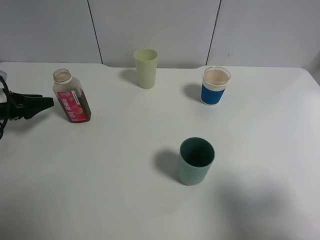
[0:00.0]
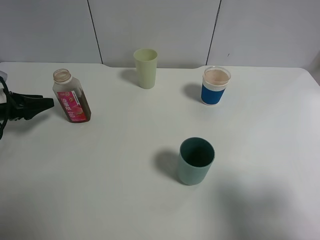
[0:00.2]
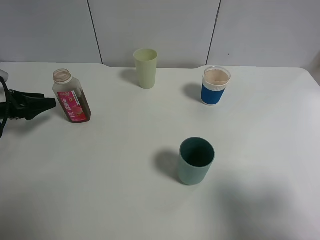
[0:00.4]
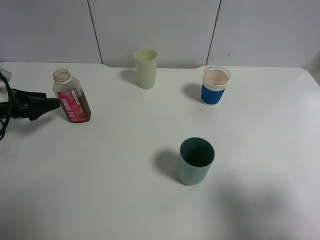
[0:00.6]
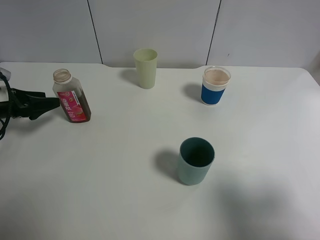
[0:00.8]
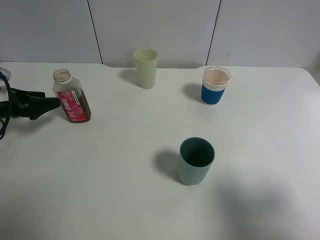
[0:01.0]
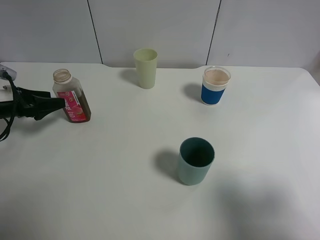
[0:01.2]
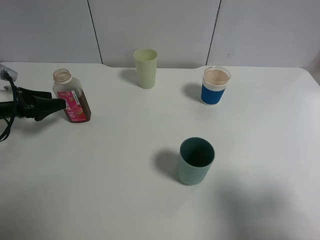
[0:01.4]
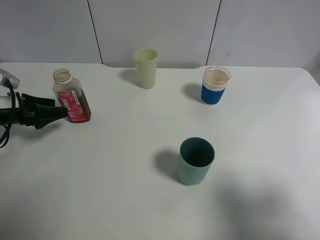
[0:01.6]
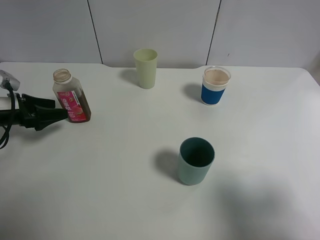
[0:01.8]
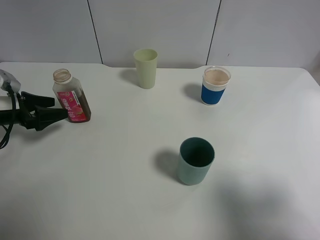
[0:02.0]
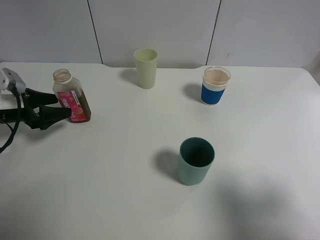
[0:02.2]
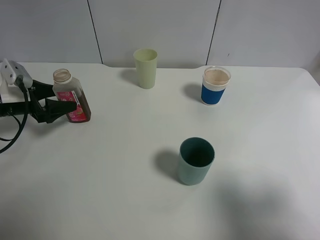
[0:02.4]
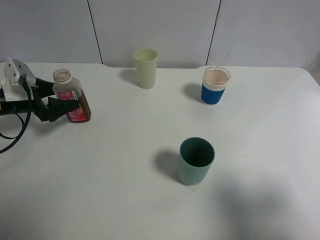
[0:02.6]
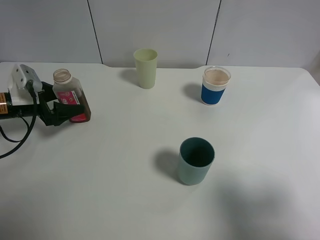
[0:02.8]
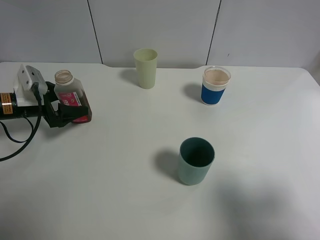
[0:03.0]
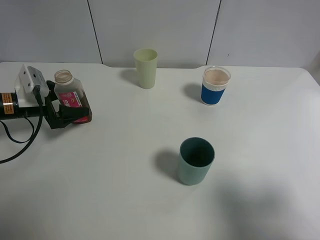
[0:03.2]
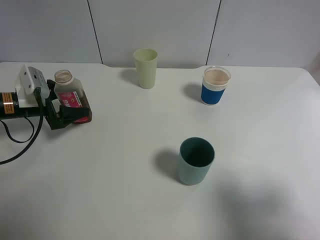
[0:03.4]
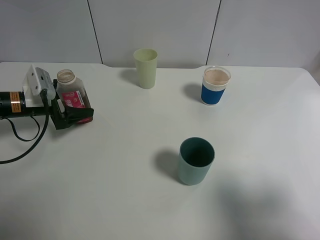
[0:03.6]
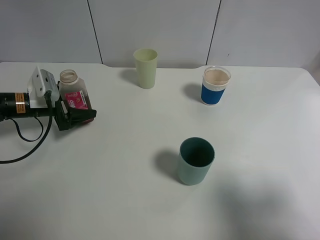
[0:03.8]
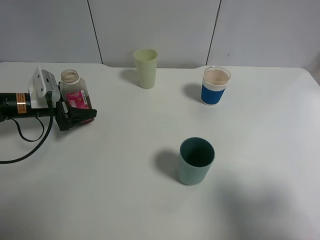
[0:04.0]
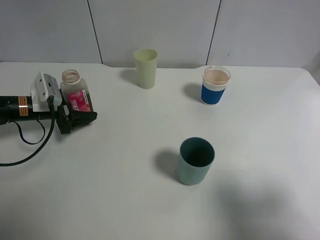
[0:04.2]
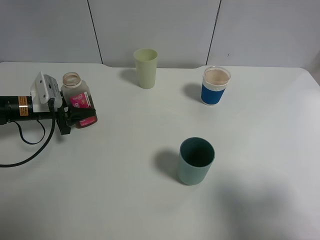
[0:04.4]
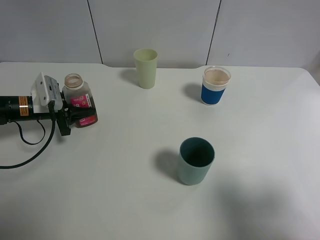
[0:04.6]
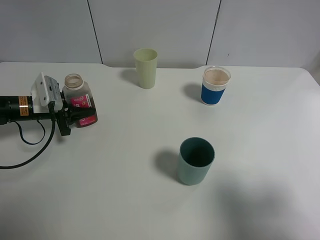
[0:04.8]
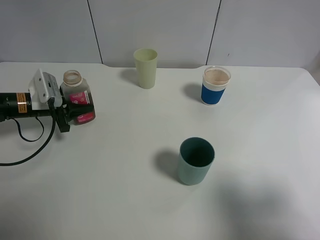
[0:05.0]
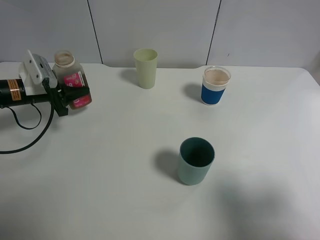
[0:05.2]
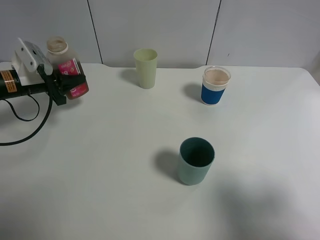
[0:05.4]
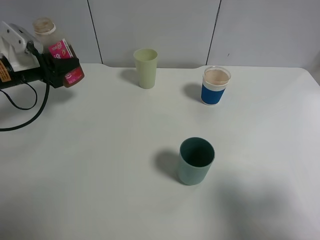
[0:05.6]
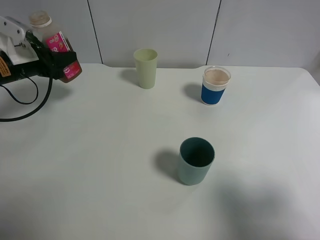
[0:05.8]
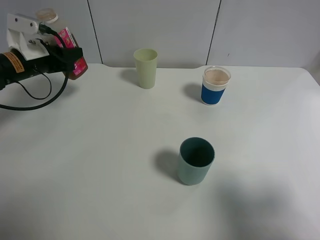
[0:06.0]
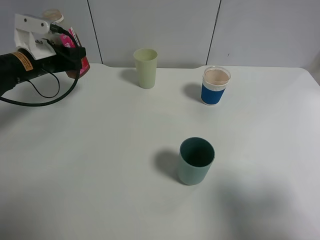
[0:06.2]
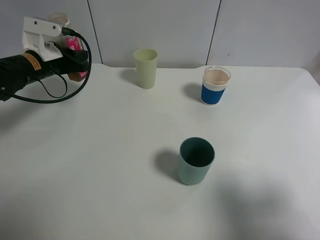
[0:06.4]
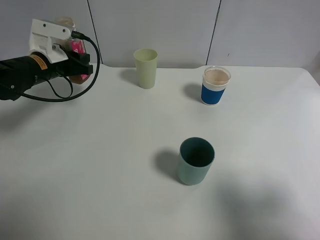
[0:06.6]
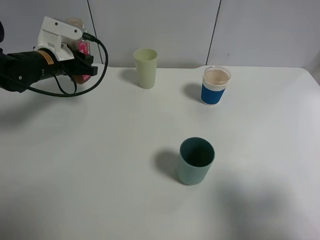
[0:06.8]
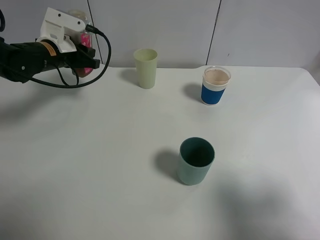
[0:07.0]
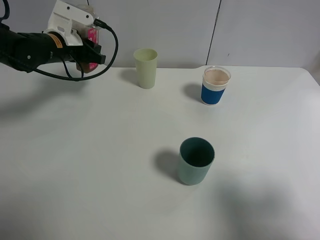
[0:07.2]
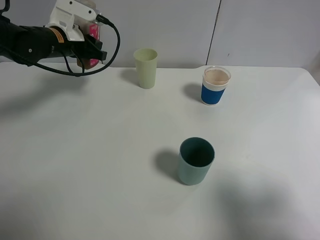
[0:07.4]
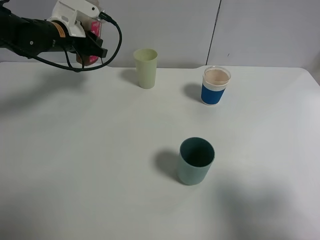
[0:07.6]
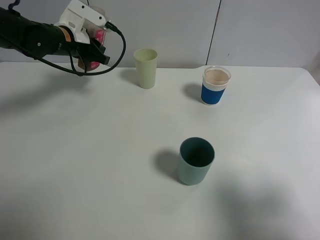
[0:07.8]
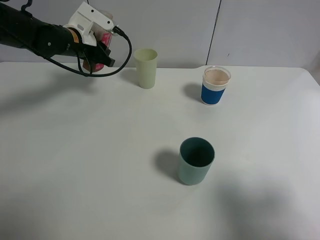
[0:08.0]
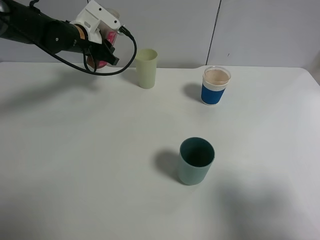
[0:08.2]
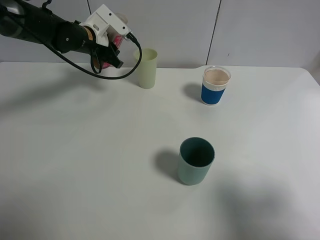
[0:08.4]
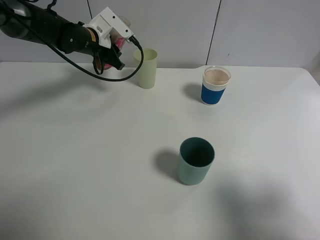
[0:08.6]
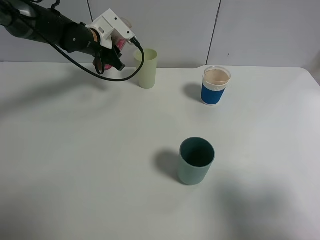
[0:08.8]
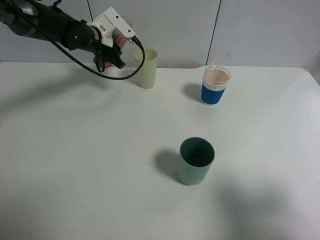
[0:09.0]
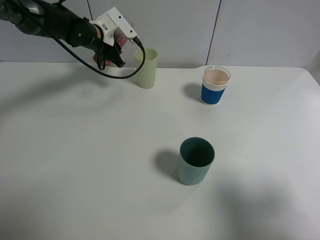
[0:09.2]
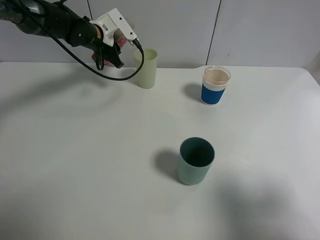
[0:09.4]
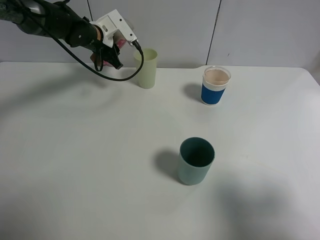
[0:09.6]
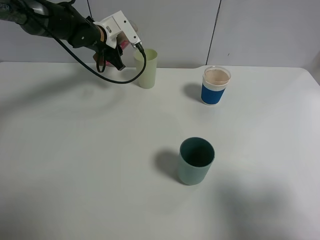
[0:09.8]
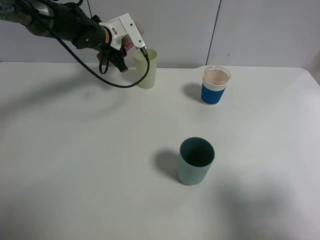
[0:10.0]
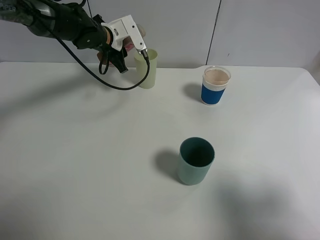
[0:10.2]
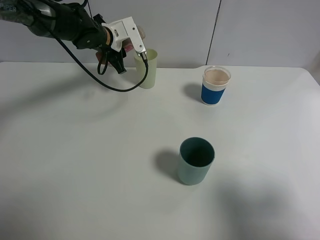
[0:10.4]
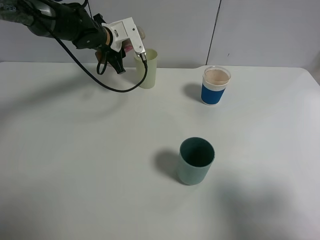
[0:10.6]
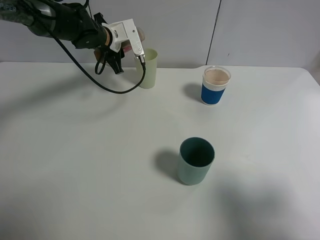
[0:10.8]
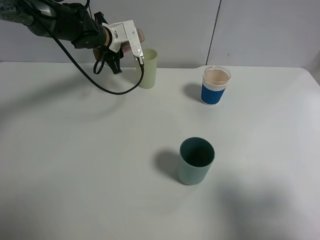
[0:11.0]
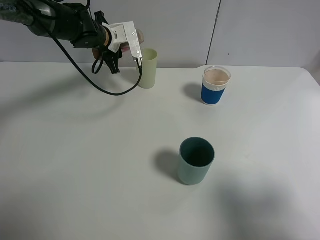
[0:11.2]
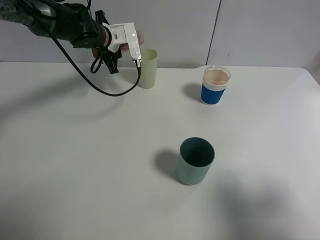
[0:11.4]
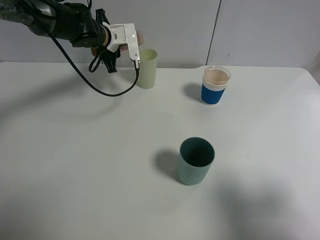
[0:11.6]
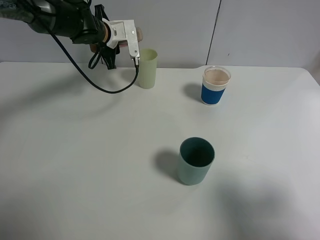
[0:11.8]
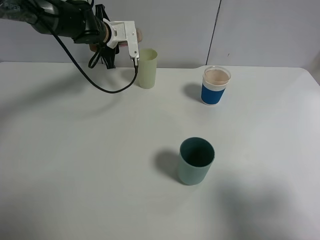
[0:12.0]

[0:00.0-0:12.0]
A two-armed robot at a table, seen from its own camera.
Task of the whole recording: use a gripper to hold the bottle of the drink and pour it into a random cup.
Step, 0:00.0 to 0:04.4: Grasp the cranberry juice bottle with the left gripper.
0:00.0 to 0:01.6: The left gripper opens.
0:01.6 to 0:03.0: The grippers move only a little.
0:03.0 to 0:04.4: The left gripper closes its fingers.
0:04.4 to 0:06.0: The left gripper heads upward, covering some 10 cm.
0:06.0 to 0:07.6: The left gripper heads to the right and forward, covering roughly 10 cm.
0:07.6 to 0:09.0: The left gripper heads forward, covering some 5 cm.
0:09.0 to 0:10.4: The grippers stay close to where they were, moving slightly.
0:10.4 to 0:12.0: There are only small adjustments of the grippers.

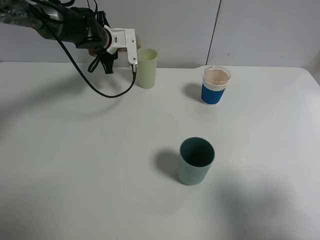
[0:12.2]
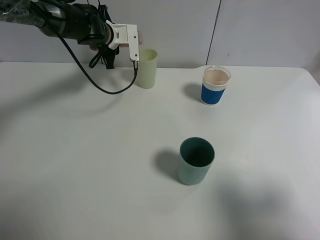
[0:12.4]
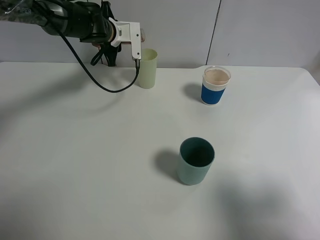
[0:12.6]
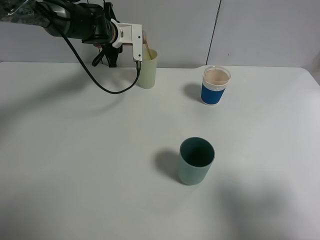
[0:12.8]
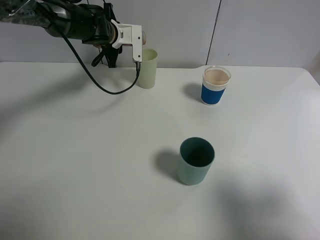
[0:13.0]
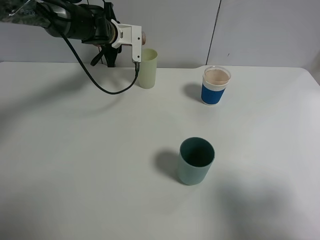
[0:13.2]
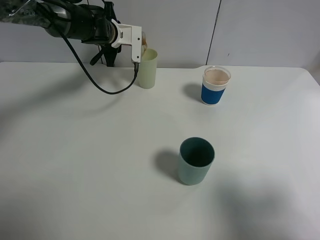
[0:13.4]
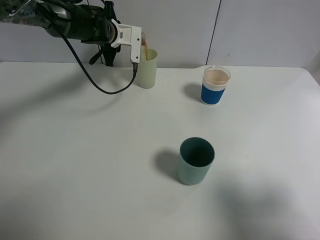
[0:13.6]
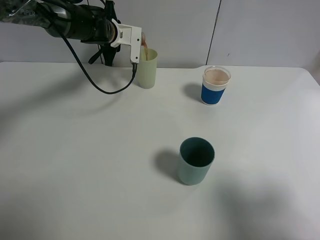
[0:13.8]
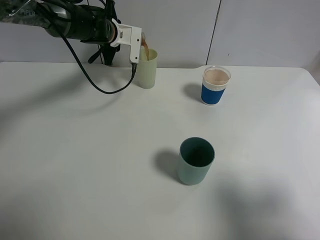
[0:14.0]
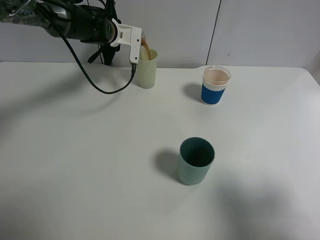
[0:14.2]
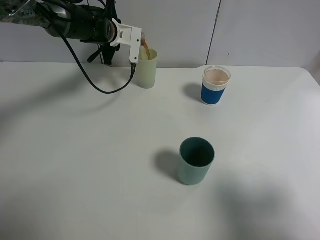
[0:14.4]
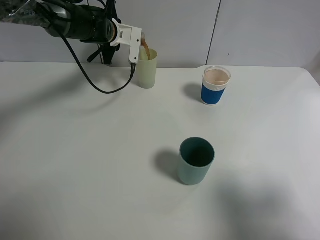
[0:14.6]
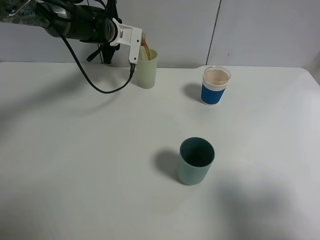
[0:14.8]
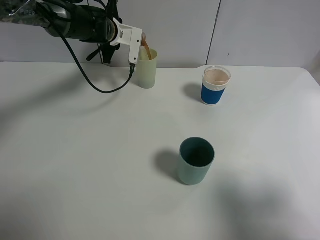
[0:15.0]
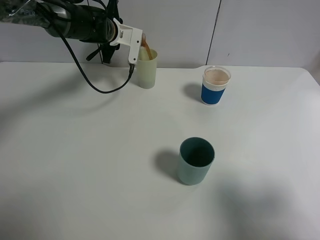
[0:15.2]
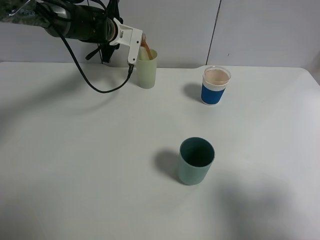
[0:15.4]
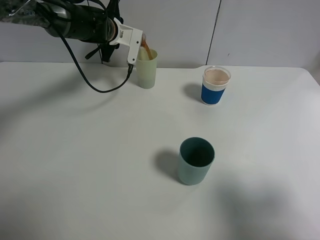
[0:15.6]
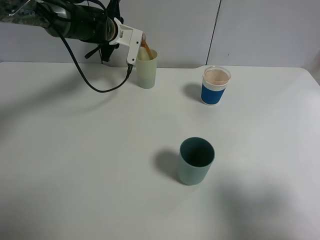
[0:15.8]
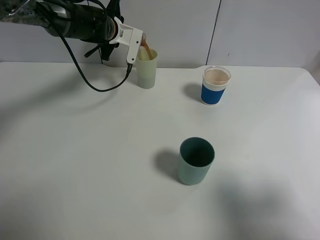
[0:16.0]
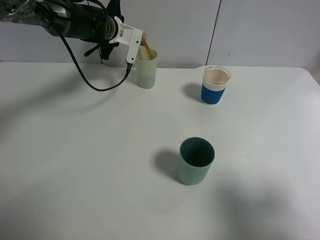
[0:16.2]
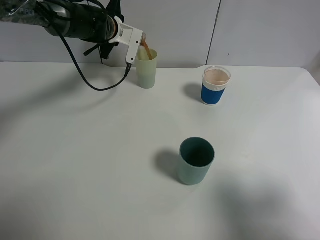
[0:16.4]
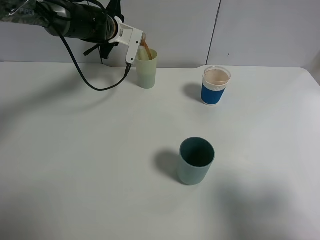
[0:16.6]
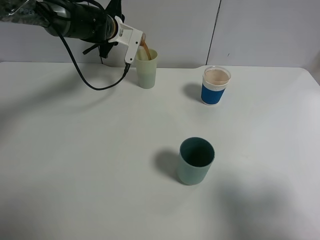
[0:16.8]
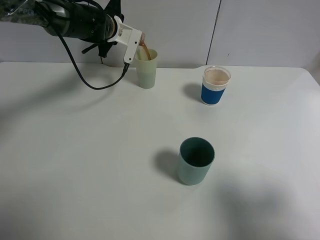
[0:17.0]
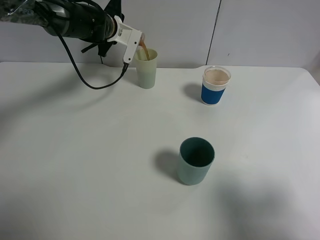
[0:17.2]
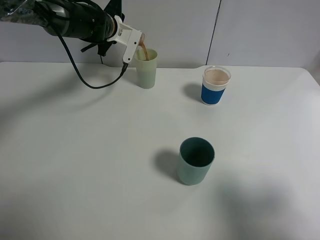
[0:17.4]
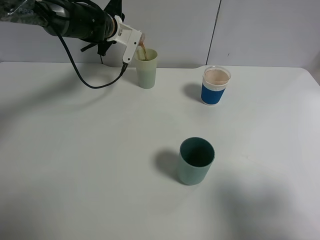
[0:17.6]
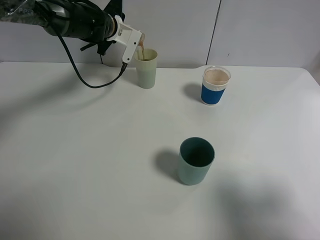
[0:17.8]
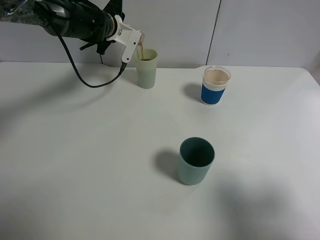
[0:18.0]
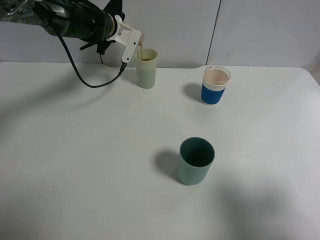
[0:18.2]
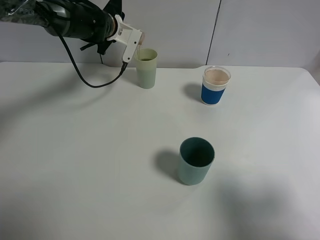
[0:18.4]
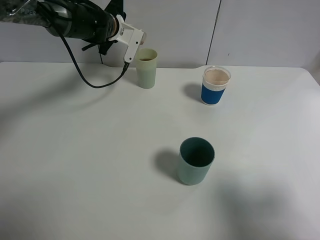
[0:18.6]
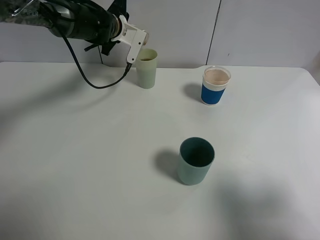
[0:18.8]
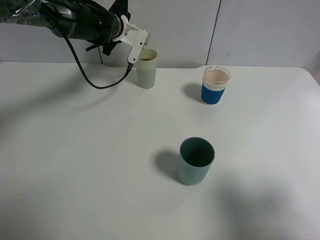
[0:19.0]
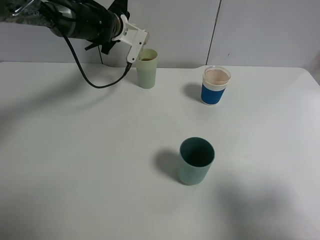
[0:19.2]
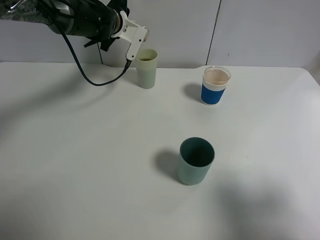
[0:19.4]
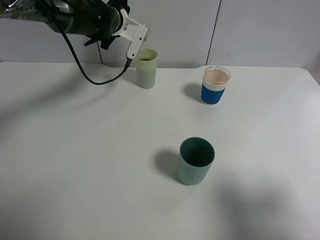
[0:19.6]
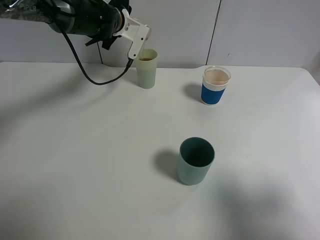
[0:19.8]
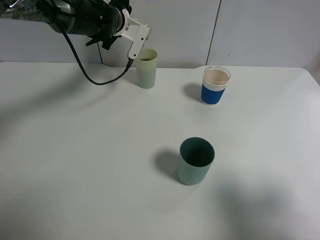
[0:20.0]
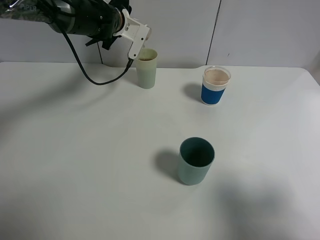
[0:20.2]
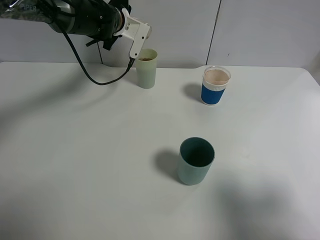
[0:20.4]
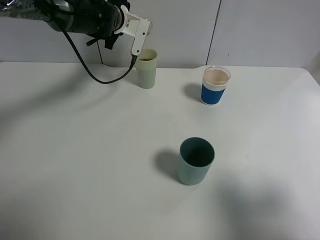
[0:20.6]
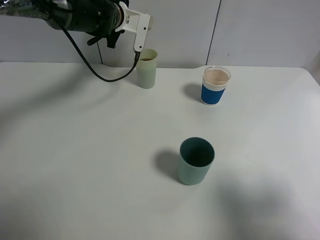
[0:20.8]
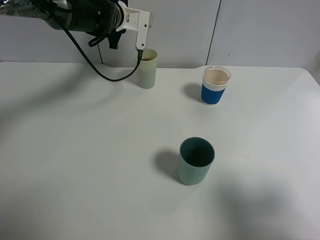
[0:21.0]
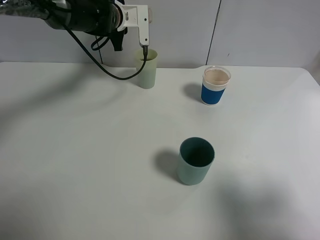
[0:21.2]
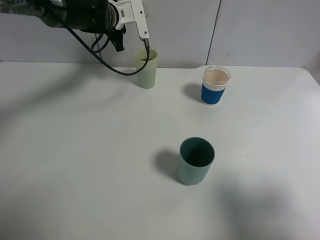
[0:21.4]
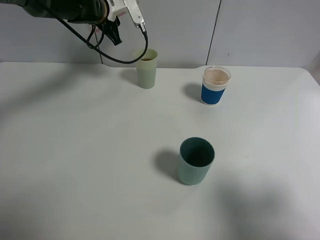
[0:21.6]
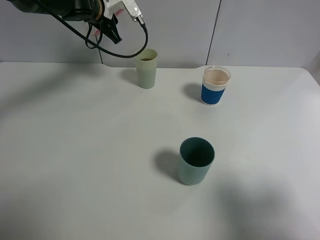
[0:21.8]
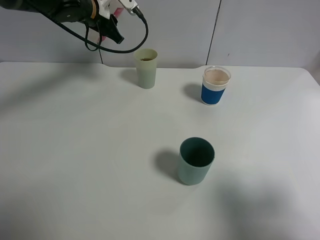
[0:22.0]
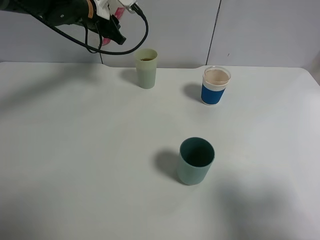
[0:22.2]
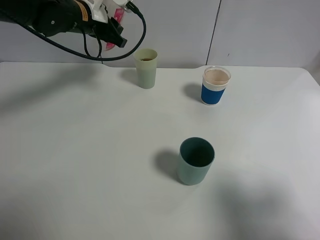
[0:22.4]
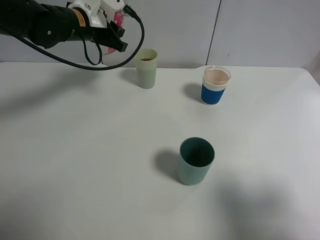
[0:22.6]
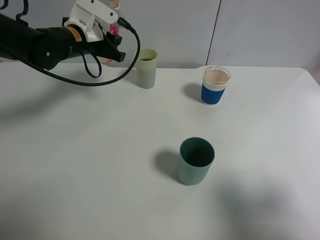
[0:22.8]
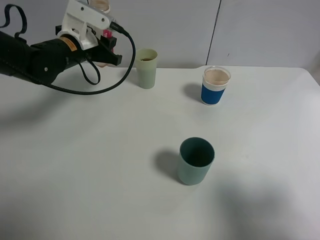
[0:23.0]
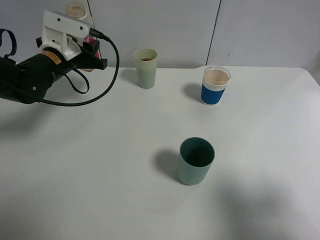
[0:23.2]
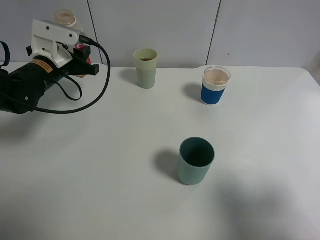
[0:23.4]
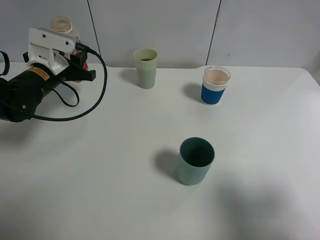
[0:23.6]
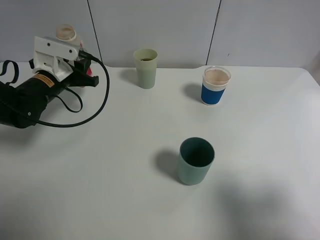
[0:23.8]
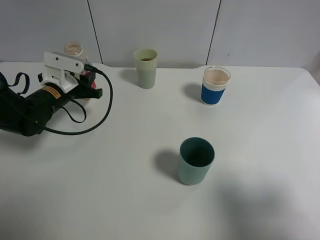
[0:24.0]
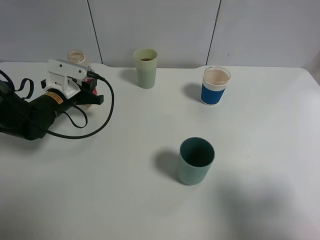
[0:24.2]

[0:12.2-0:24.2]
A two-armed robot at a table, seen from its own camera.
Task of the whole recording: use a gripper to hold the bottle of the drink and pour it into a random cup.
Step, 0:12.2 to 0:21.6: Pour the cranberry juice into the White Plastic Cup with the left gripper.
0:12.2 to 0:15.2: The grippers make only small movements.
0:15.2 to 0:19.8: The grippers stay close to where they were, moving slightly.
0:21.2 to 0:22.6: The left gripper is displaced backward by about 10 cm.
0:22.6 to 0:24.2: The left gripper shifts roughly 15 cm downward, to the left and backward.
